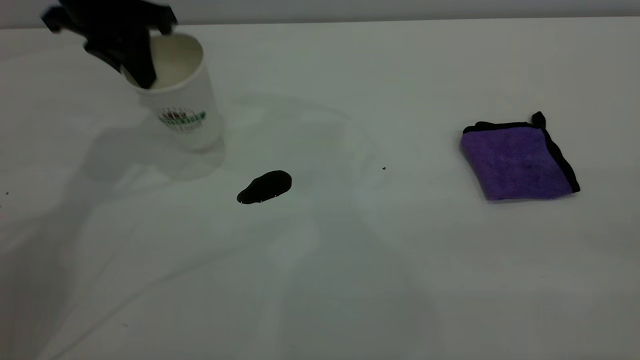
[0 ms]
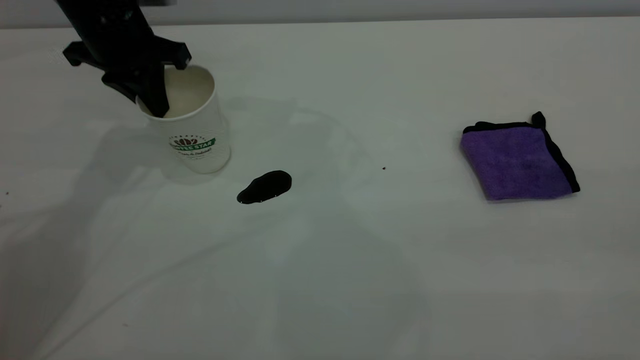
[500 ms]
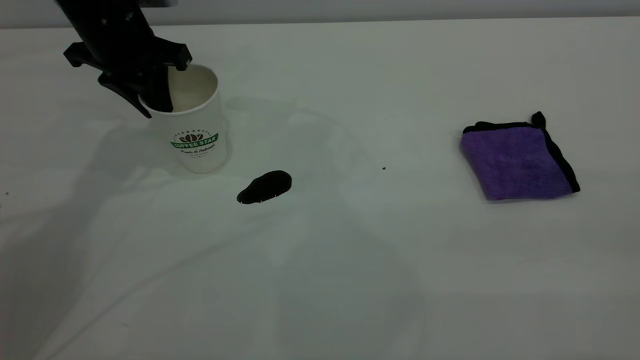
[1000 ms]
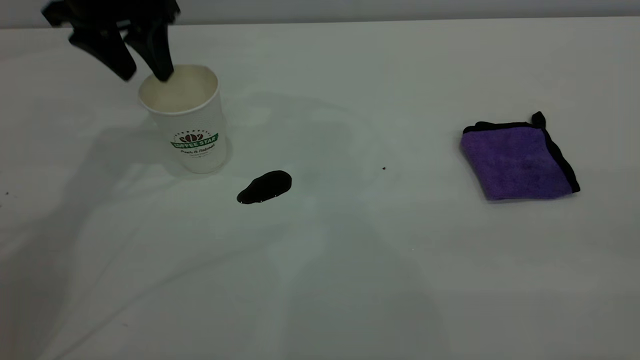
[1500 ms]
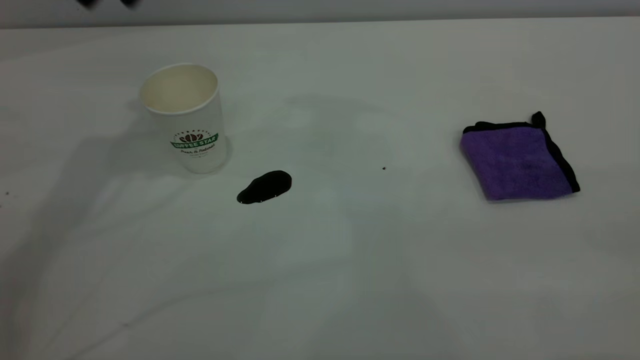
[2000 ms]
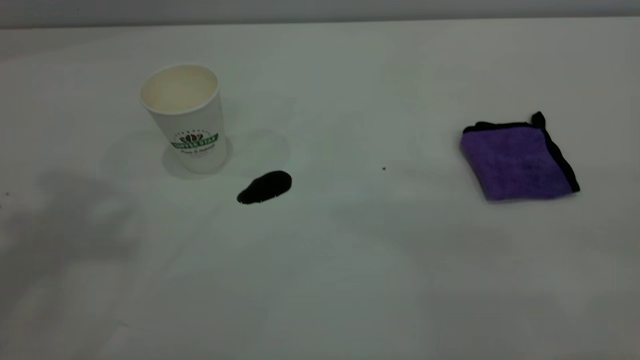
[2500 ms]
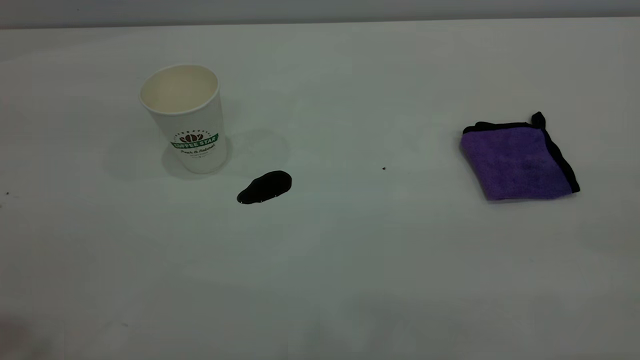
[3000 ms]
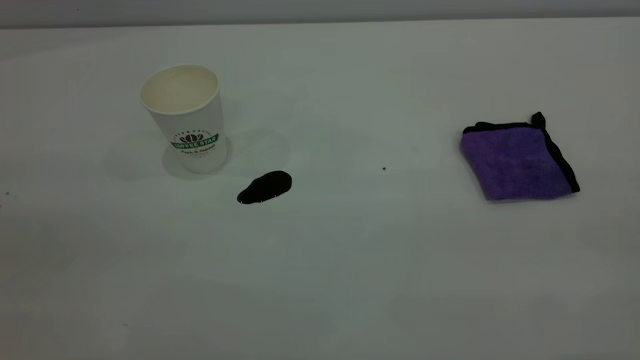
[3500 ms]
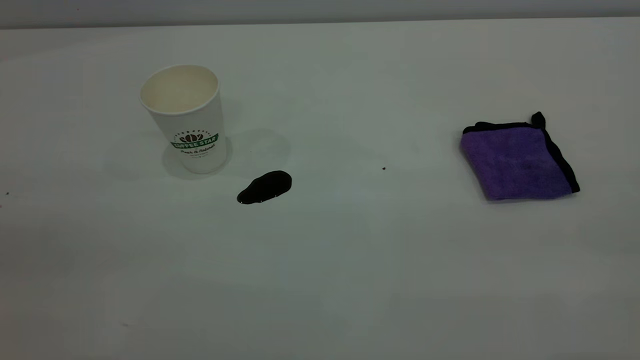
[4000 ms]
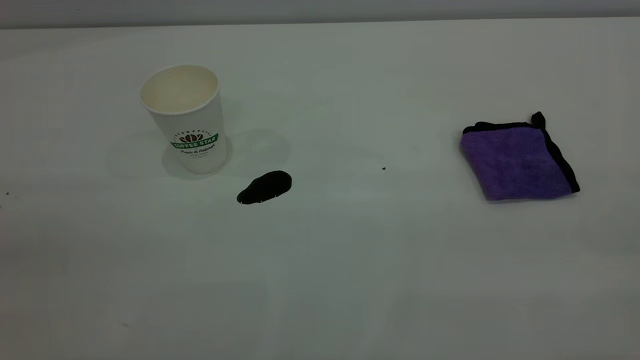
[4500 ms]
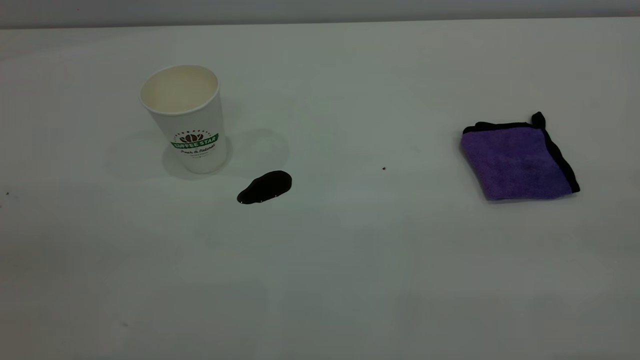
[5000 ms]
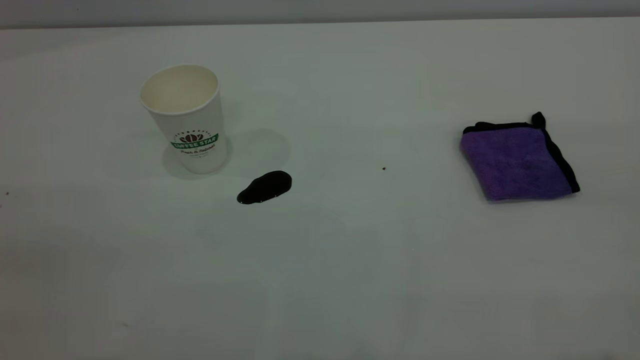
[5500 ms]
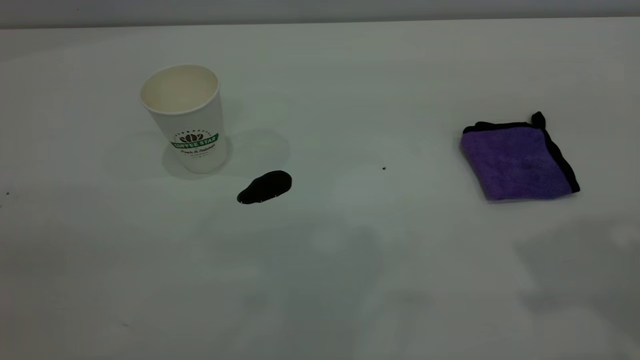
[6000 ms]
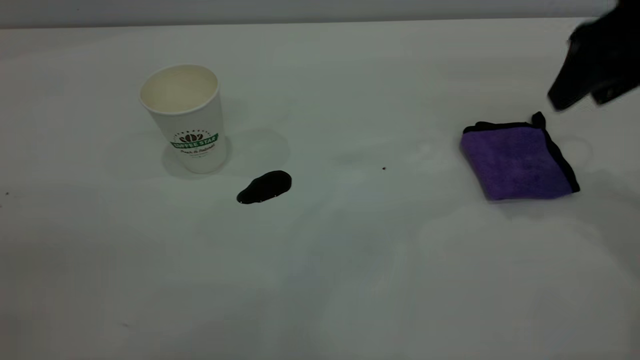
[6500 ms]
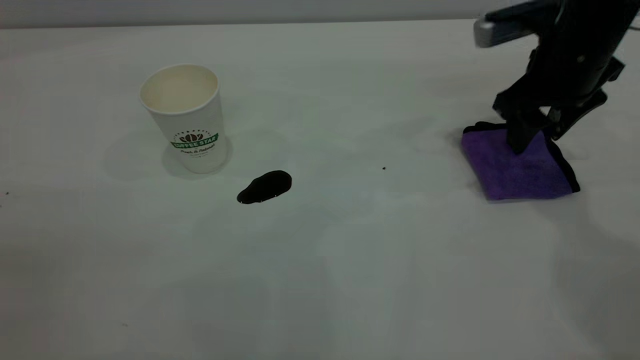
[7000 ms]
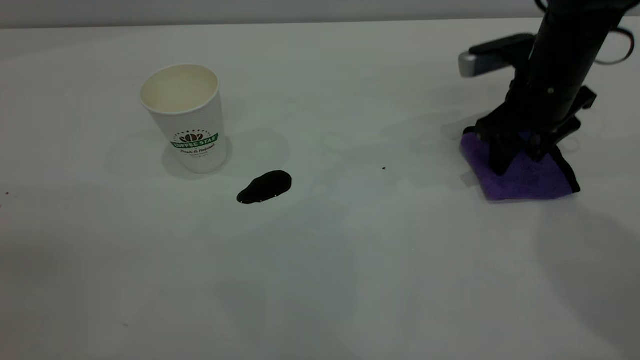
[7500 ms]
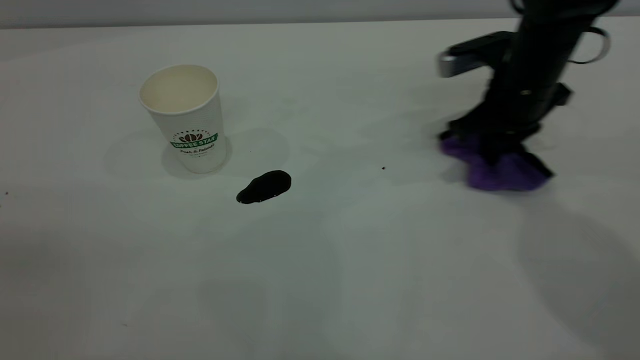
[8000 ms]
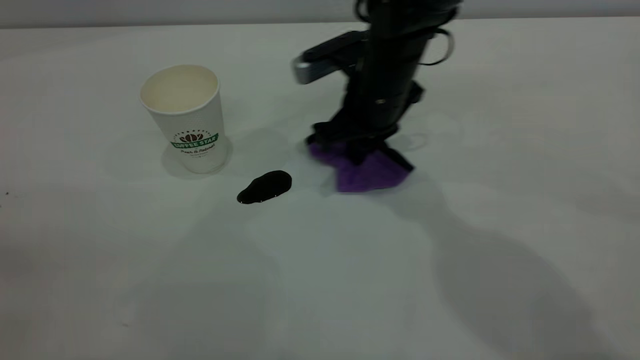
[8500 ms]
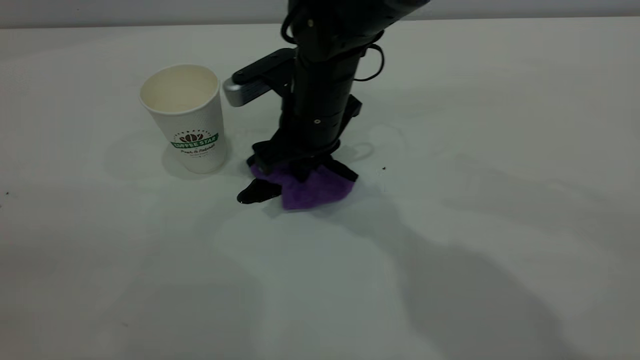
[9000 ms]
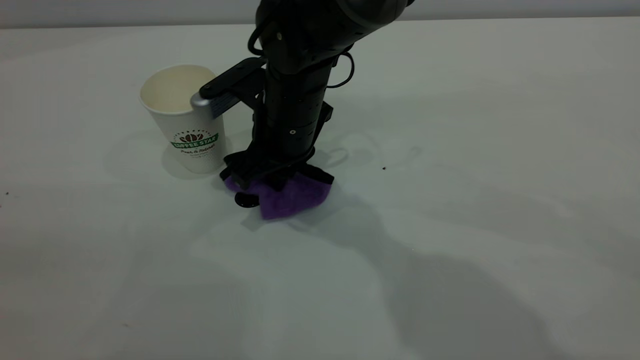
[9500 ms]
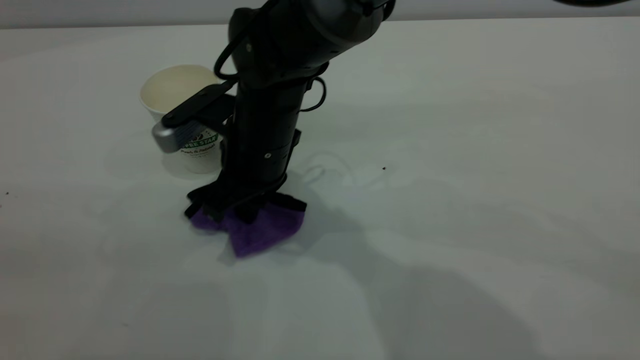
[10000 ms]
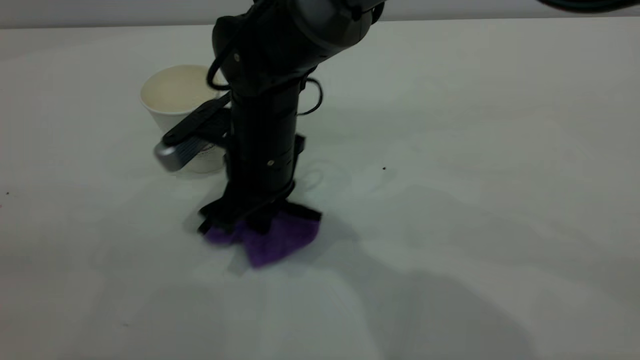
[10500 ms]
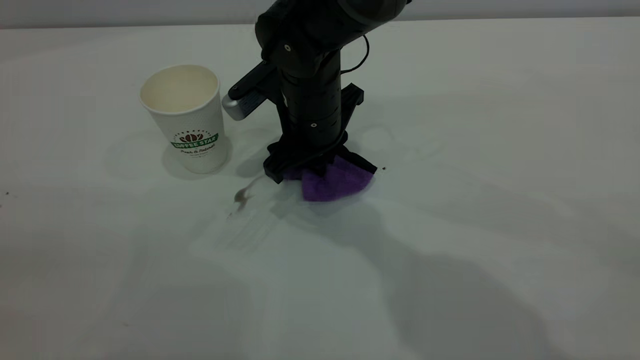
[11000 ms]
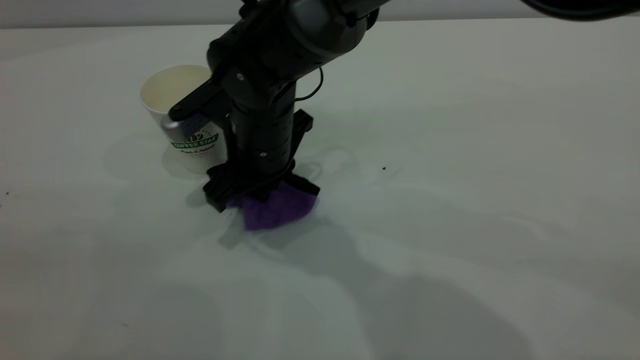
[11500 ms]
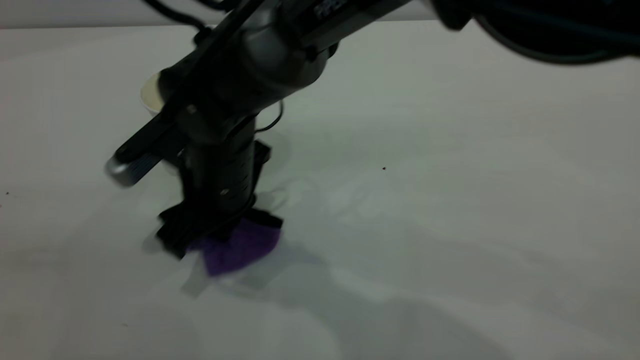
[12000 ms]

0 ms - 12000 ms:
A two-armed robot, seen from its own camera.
Task of the whole recording: the left gripper pick up the fallen cup and place it upright, the right gripper grasp the purple rag and wipe the coffee stain on the table, the right gripper put the purple rag back in its original position.
0 ms - 2000 ms: The left gripper moves upward, approximately 15 cm, and opens its fingers.
6000 ms - 8000 ms: The right gripper moves downward and forward, about 30 cm, and closes.
8000 ms - 10000 ms: The right gripper shifts roughly 25 cm to the left.
10000 ms - 12000 ms: The right gripper ends up approximately 5 cm from where it was.

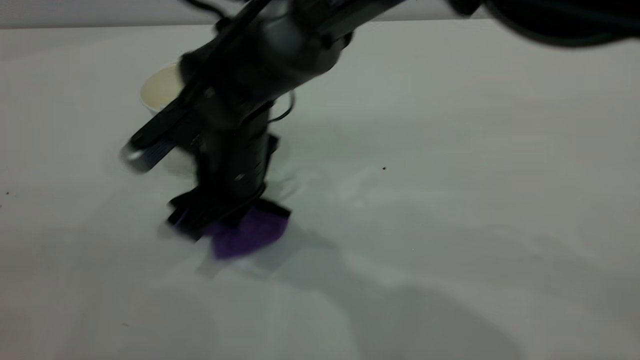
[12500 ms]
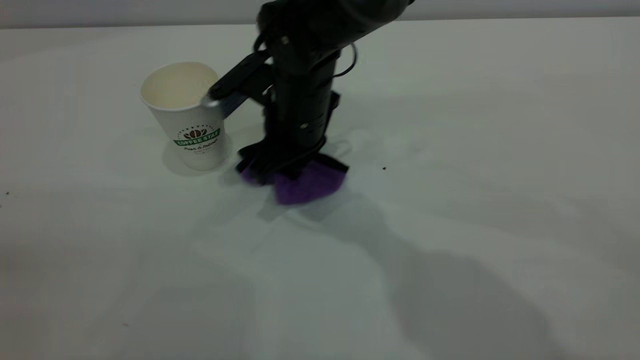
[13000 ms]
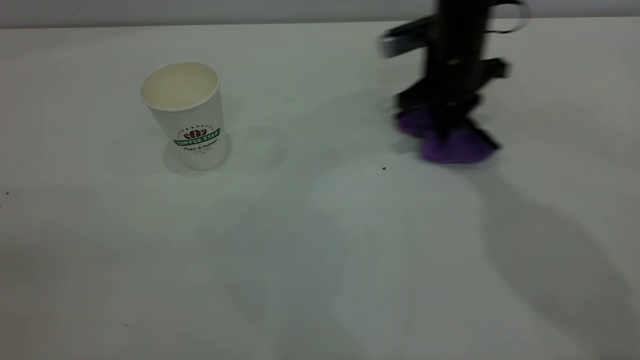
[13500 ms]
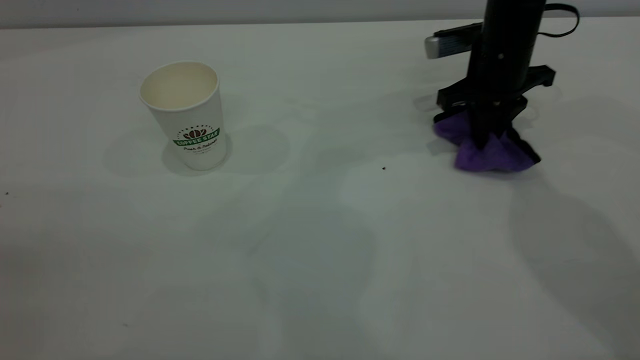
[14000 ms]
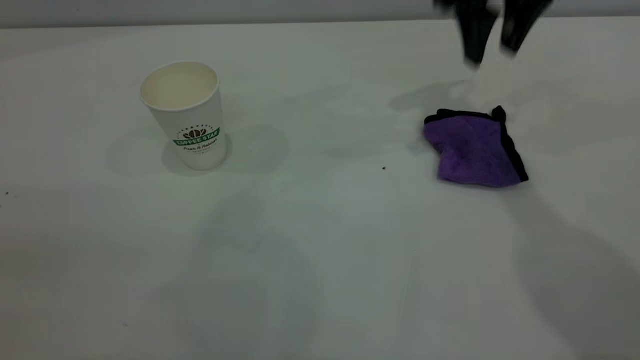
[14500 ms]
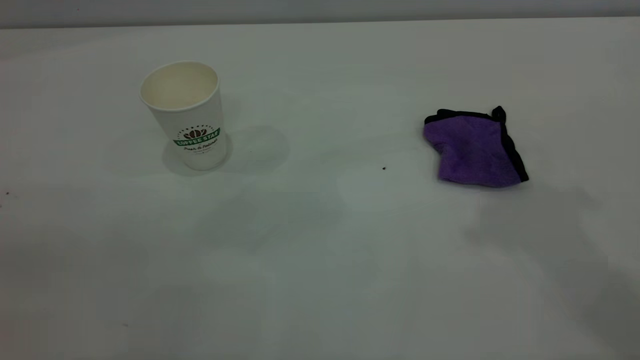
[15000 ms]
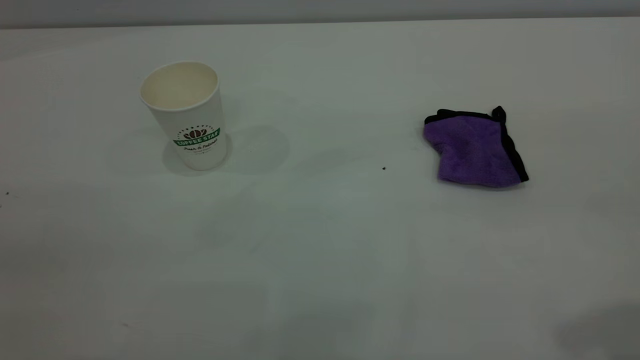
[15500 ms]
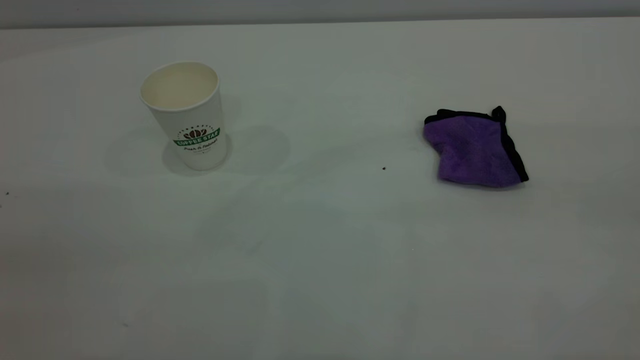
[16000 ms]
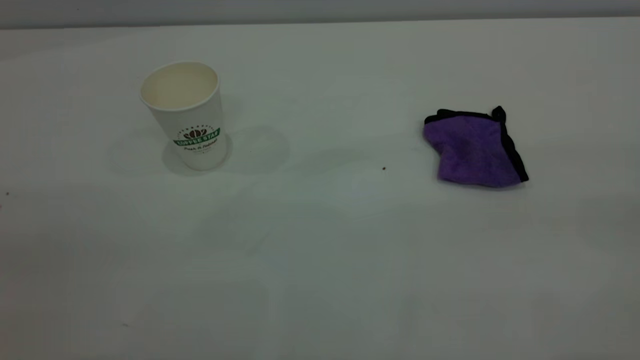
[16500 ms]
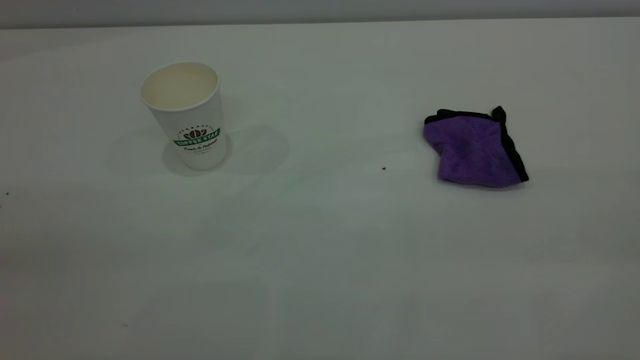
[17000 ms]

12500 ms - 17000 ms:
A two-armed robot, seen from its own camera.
Task of the whole recording: the left gripper pick up the fallen cup and place it upright, the right gripper grasp the purple rag and wipe the coffee stain on the table, the right gripper put the purple rag back in its original position.
12500 ms - 14500 ms: The right gripper goes some 30 cm to the right, upward and forward, and opens up.
14500 ms - 17000 ms: The right gripper goes some 40 cm backward.
